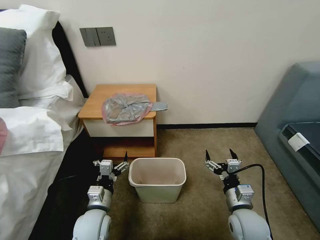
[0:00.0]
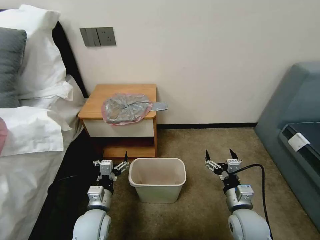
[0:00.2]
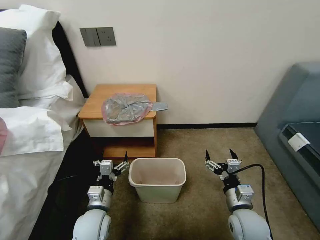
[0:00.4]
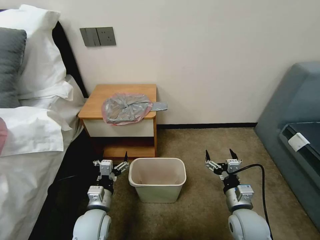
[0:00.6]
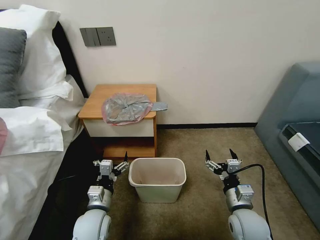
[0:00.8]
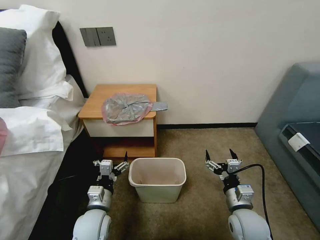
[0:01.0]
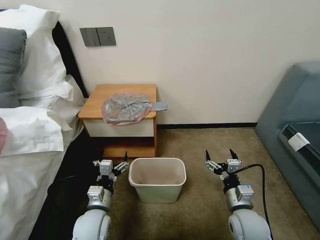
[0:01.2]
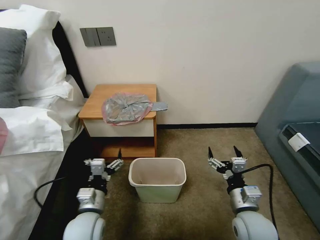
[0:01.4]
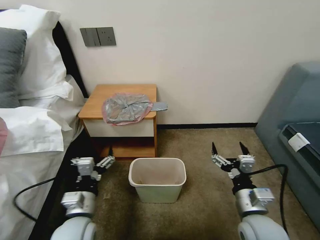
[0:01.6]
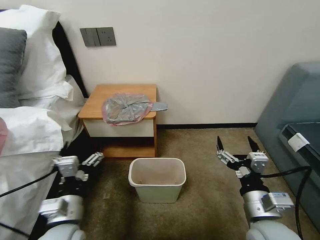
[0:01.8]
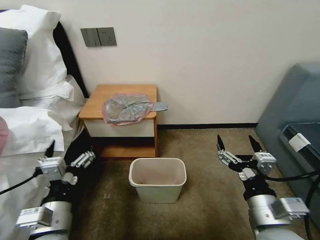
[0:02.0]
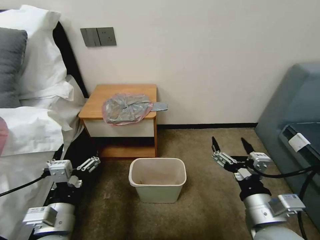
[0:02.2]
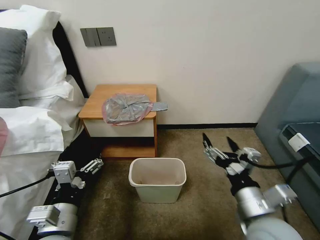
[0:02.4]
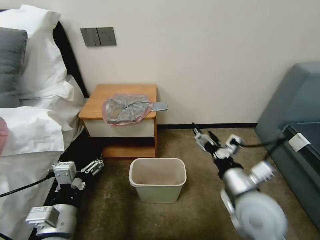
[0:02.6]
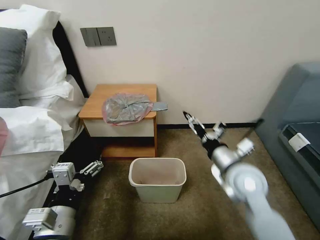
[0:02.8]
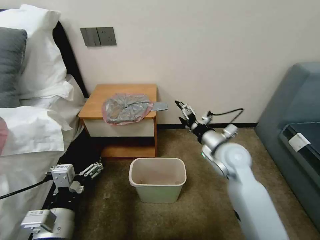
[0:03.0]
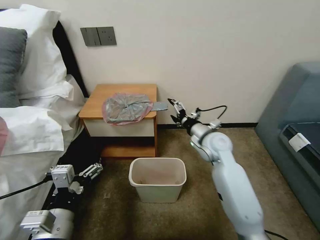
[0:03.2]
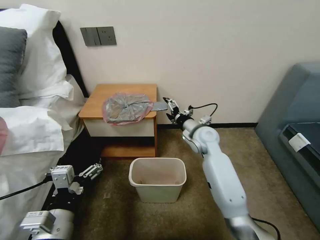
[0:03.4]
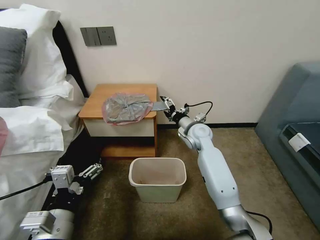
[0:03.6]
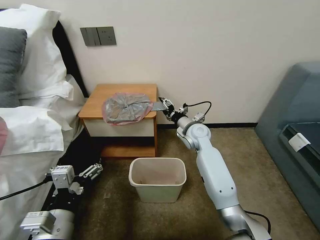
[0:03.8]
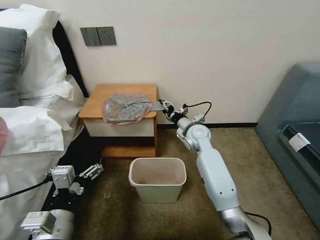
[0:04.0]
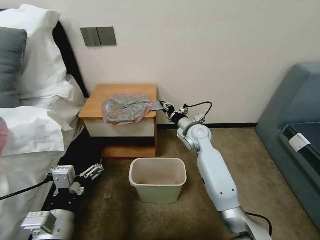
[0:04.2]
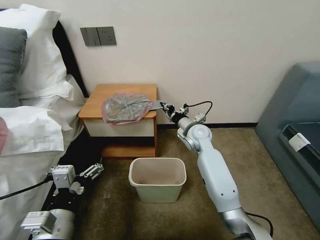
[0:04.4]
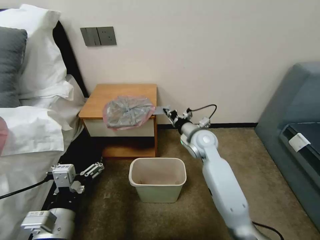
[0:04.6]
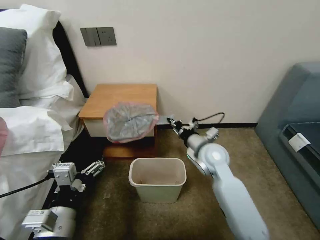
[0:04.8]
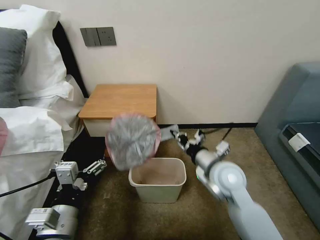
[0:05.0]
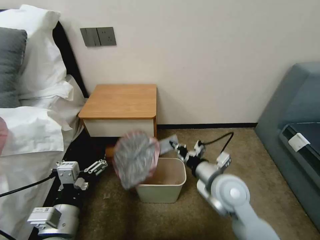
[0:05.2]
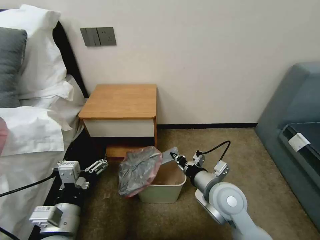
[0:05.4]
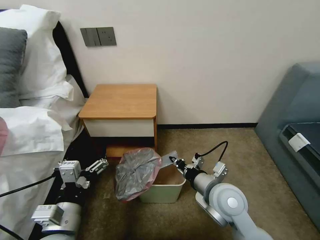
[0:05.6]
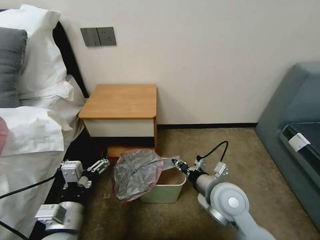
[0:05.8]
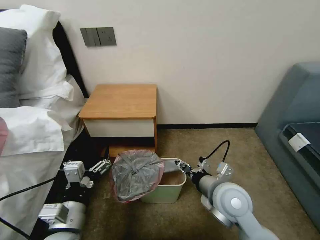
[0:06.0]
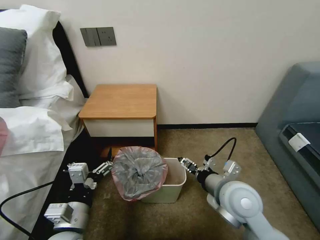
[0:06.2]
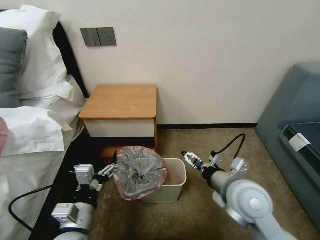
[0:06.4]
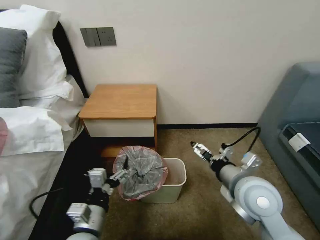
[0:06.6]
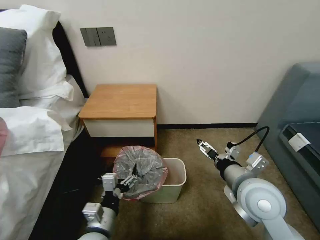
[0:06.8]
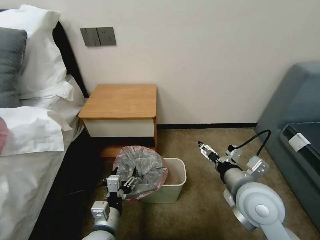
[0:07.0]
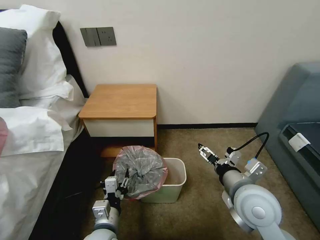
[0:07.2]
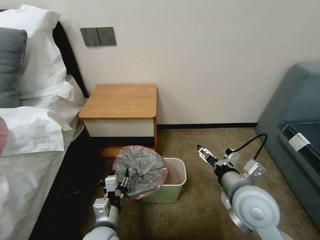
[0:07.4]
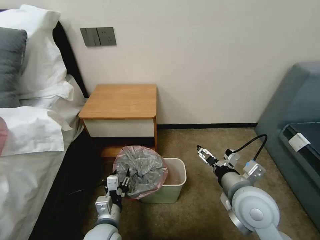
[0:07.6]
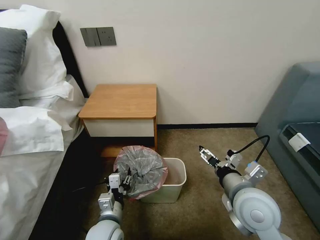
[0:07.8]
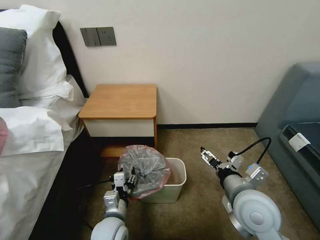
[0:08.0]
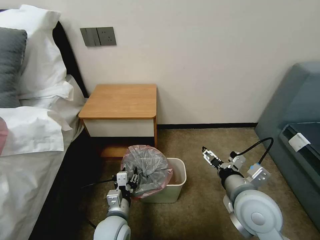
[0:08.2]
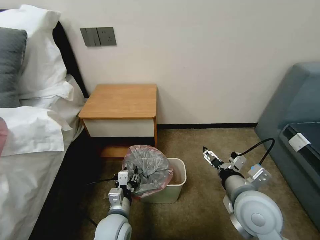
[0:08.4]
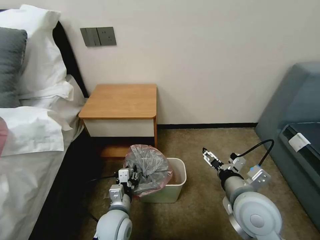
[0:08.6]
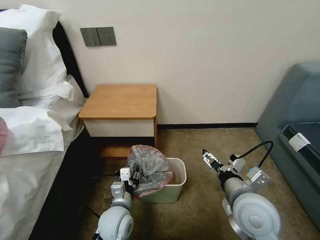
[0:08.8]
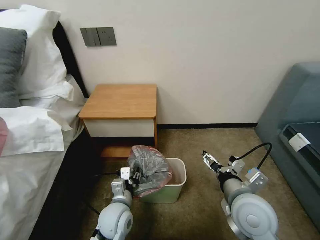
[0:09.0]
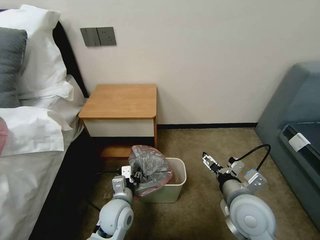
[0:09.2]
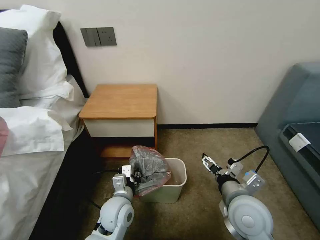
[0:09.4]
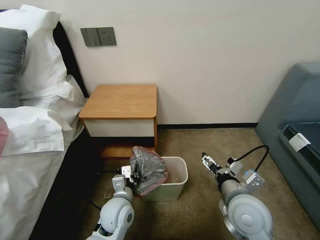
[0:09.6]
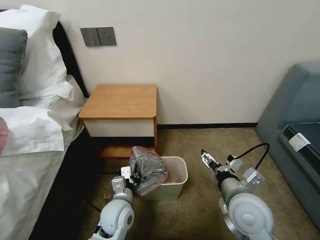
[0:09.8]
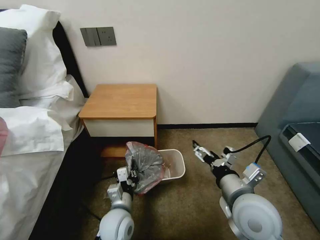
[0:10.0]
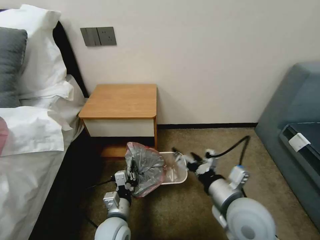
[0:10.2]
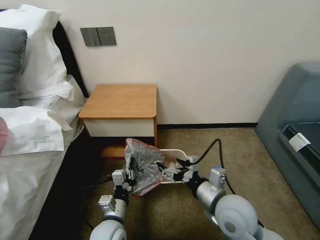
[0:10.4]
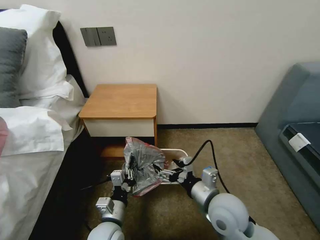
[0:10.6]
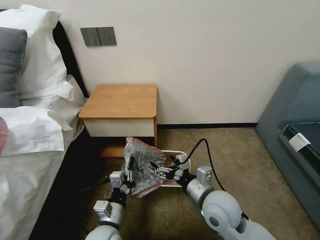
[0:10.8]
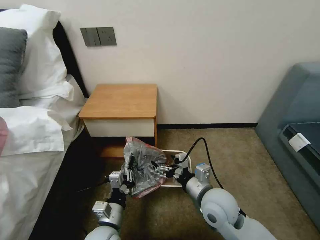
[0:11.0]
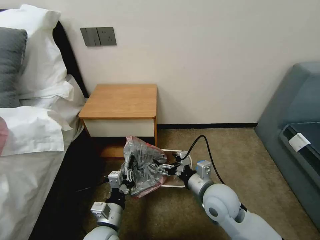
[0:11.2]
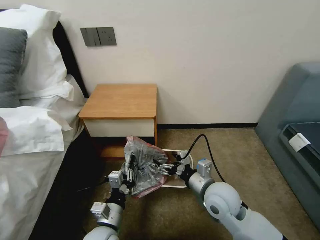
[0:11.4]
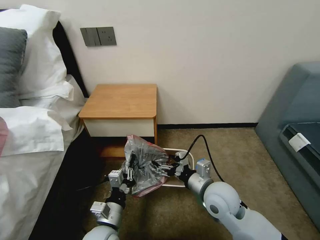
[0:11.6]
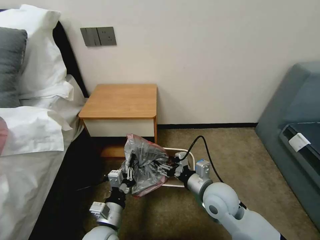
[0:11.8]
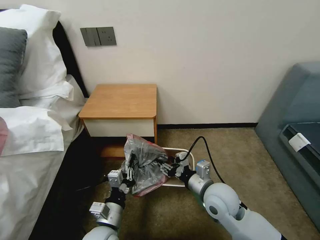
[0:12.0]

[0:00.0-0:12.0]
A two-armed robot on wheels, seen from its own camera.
Task of the whole recording: Pick up the garbage bag from the table and place it over the trash can.
0:01.6 to 0:03.0: The right gripper goes some 20 cm forward; the left gripper shifts some 10 cm upward and backward.
0:03.0 to 0:04.4: The right gripper goes some 10 cm forward and to the left, and closes.
0:04.4 to 0:06.0: The right gripper moves backward, approximately 25 cm, and opens up.
0:06.0 to 0:07.6: The right gripper moves some 5 cm, and opens up; the left gripper heads downward and to the right, covering approximately 10 cm, and closes its fingers.
0:07.6 to 0:09.0: The left gripper travels forward by approximately 5 cm.
0:09.0 to 0:10.4: The left gripper changes place by approximately 5 cm, and closes up.
0:10.4 to 0:12.0: The right gripper ends up approximately 5 cm from where it was, and closes.

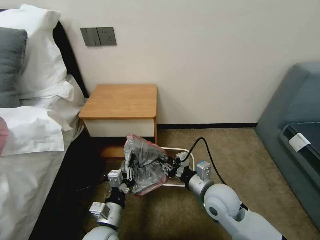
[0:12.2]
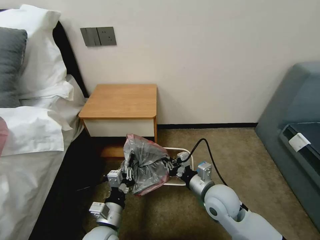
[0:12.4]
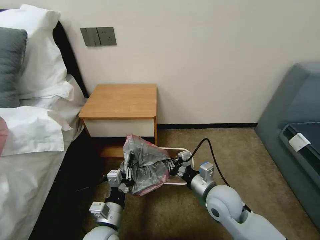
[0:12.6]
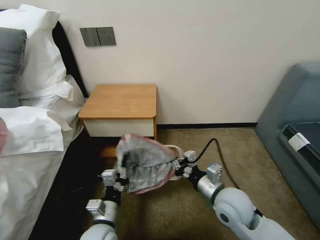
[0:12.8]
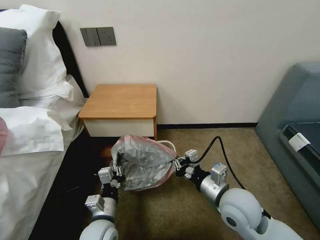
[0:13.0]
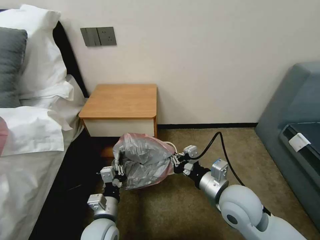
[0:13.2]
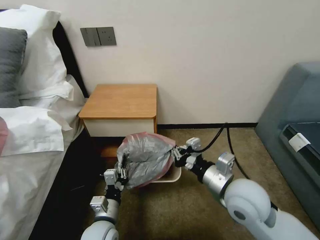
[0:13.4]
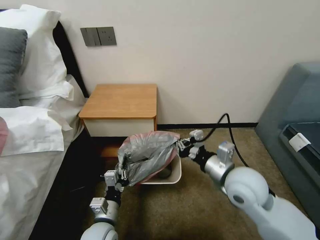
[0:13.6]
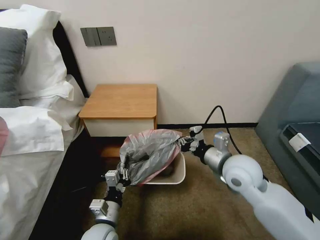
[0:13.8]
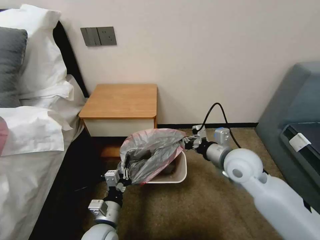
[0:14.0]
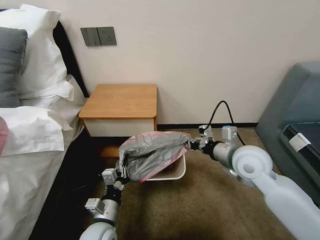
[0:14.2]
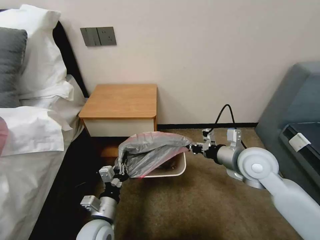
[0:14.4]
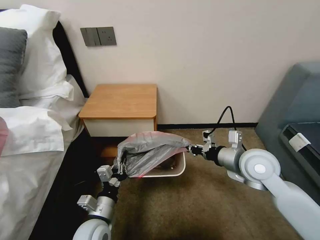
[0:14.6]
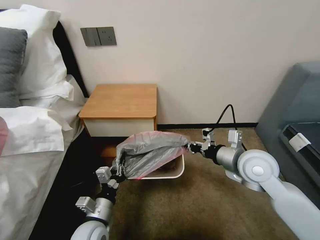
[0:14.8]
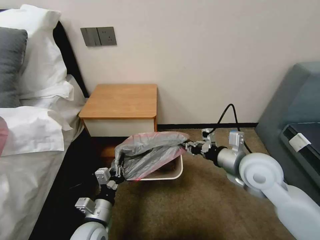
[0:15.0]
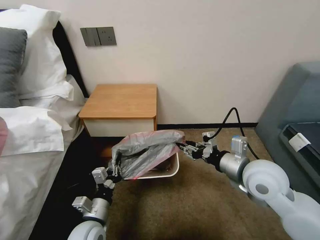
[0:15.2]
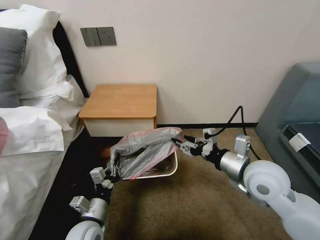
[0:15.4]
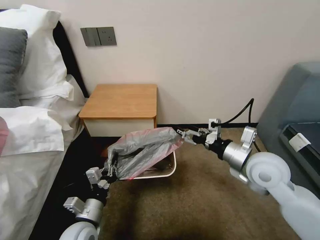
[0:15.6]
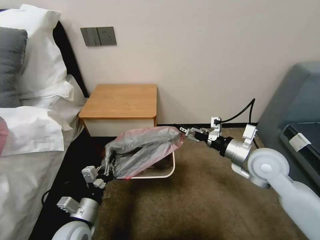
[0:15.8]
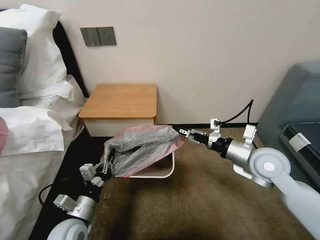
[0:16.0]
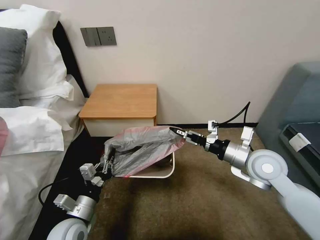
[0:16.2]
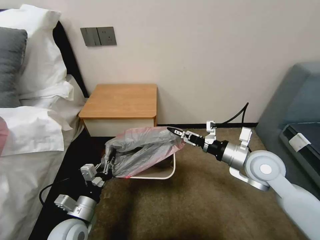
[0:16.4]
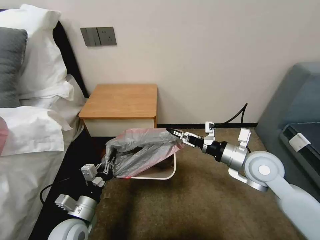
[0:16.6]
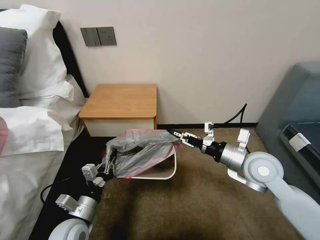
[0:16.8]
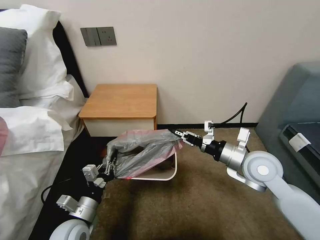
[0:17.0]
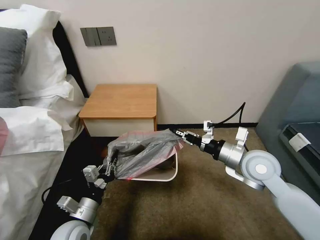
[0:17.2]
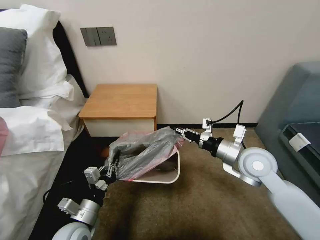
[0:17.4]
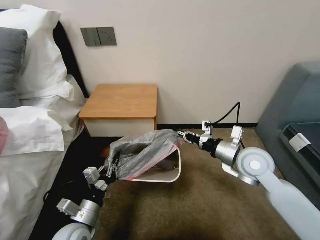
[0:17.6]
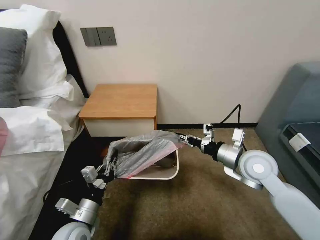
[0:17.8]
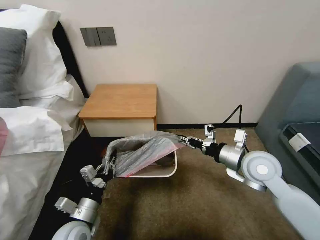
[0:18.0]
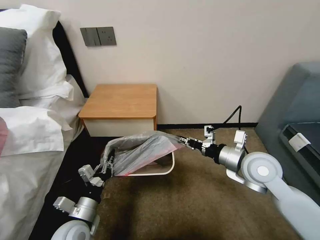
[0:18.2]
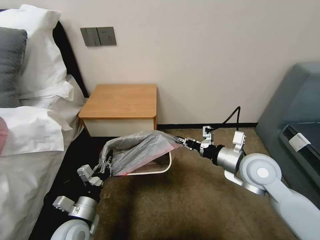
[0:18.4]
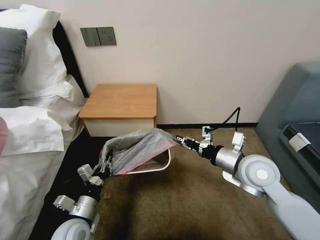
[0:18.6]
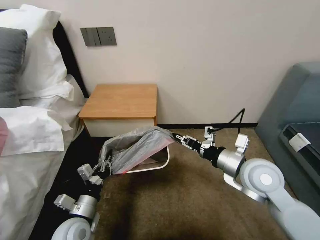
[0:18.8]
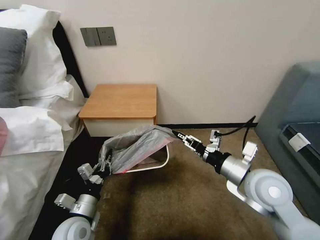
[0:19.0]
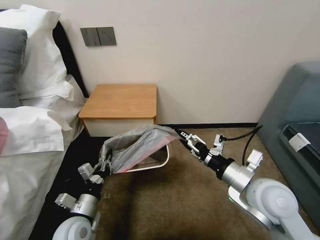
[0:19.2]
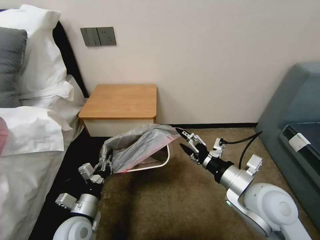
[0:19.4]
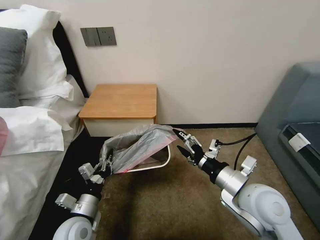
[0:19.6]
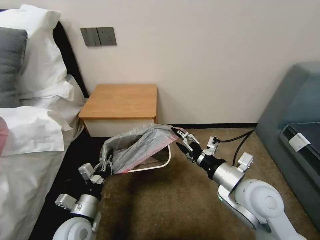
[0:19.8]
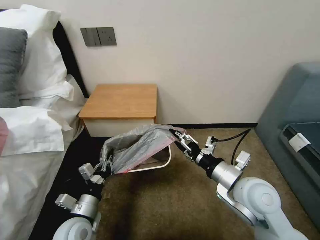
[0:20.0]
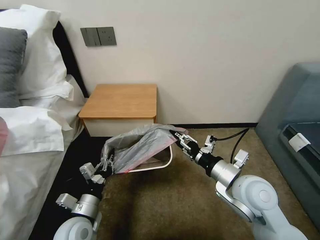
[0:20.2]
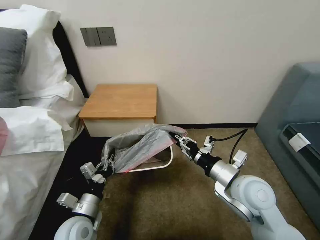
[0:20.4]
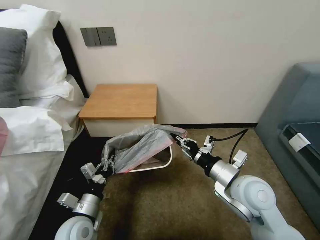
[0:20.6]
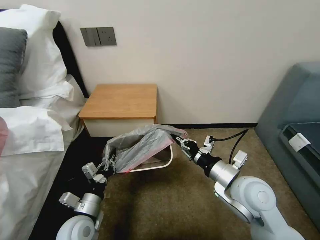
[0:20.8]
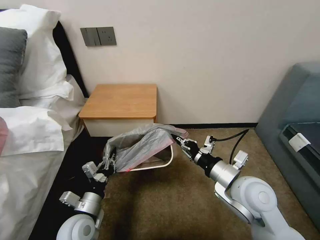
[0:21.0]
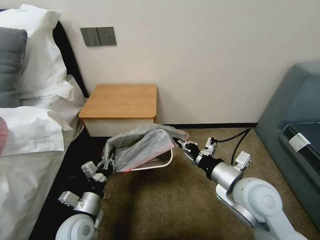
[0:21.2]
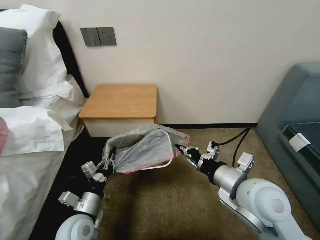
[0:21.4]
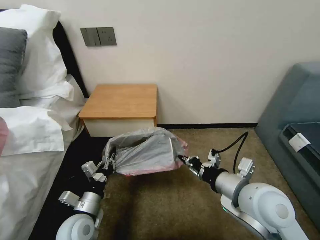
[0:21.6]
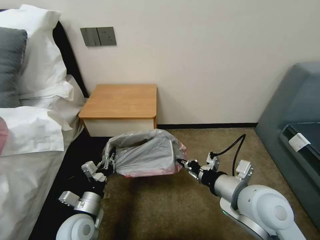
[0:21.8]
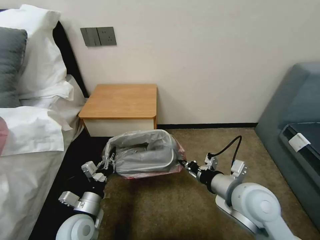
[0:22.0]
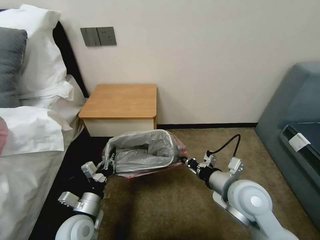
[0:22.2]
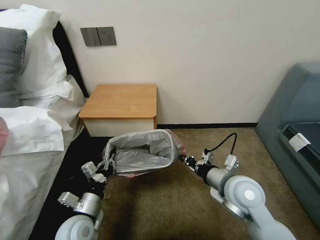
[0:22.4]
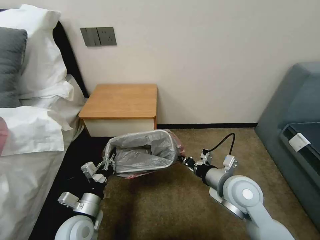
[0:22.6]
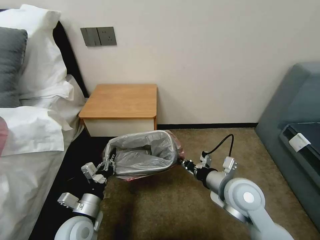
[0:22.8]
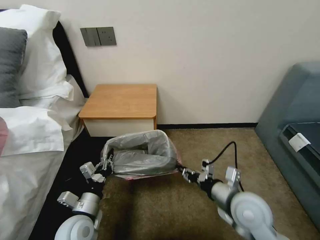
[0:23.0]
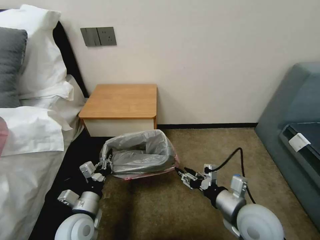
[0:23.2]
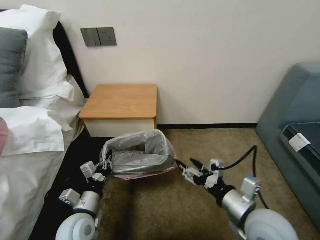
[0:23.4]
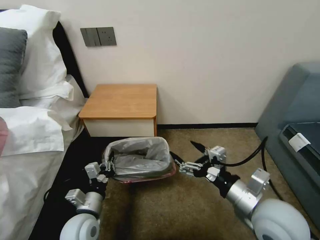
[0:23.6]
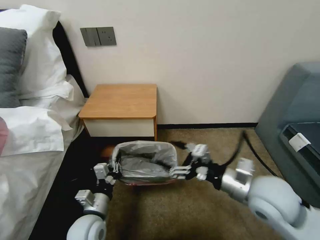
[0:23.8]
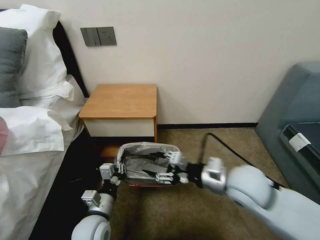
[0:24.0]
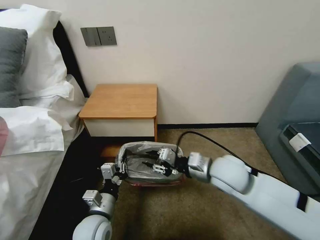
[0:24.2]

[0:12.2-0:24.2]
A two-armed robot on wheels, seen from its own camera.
Task of the whole recording: Pick up the garbage bag from the table and place it over the trash can.
0:12.2 to 0:13.8: The right gripper travels upward by about 10 cm.
0:13.8 to 0:15.2: The right gripper ends up about 5 cm from where it was, and opens up.
0:15.2 to 0:16.6: The right gripper ends up about 5 cm from where it was, and opens and closes again.
0:16.6 to 0:18.2: The right gripper closes up.
0:18.2 to 0:19.8: The right gripper travels backward by roughly 10 cm, and opens up.
0:19.8 to 0:21.2: The right gripper closes.
0:21.2 to 0:22.6: The right gripper shifts by about 5 cm.
0:22.6 to 0:24.2: The right gripper goes backward and returns, roughly 10 cm each way, and opens up.
